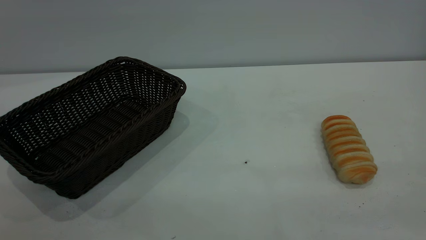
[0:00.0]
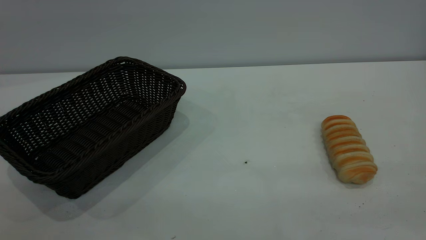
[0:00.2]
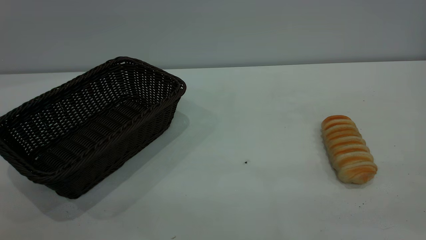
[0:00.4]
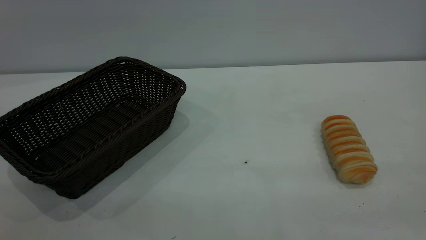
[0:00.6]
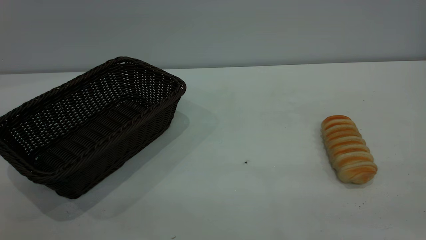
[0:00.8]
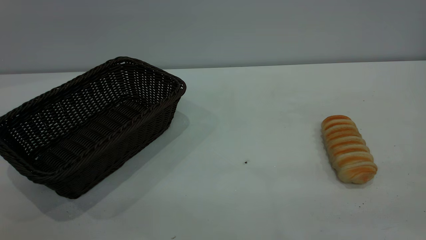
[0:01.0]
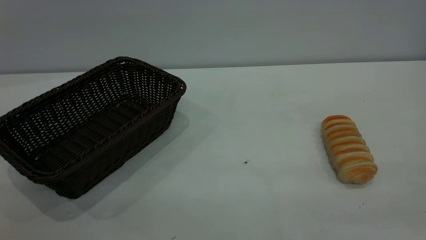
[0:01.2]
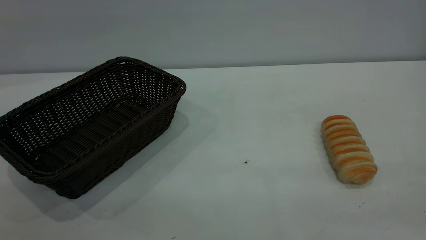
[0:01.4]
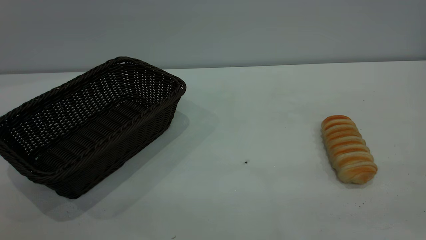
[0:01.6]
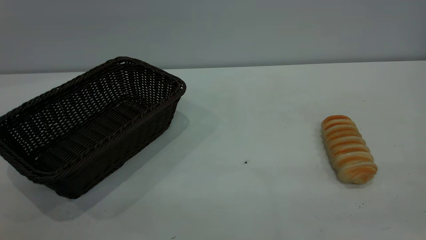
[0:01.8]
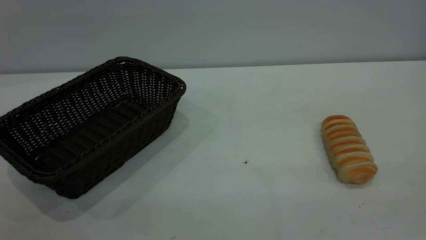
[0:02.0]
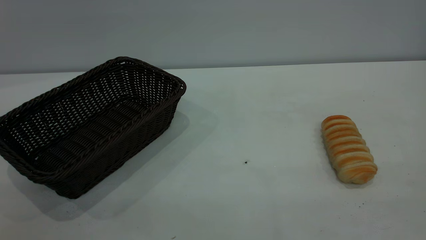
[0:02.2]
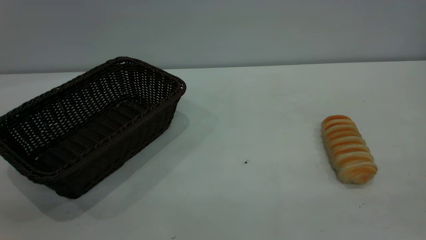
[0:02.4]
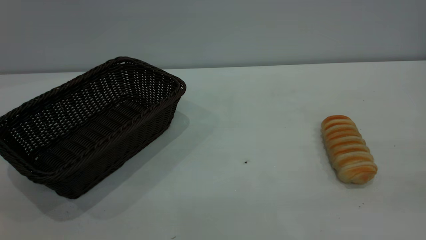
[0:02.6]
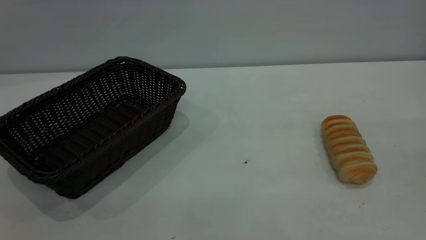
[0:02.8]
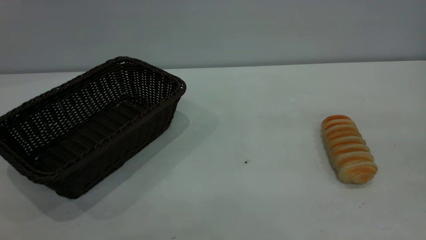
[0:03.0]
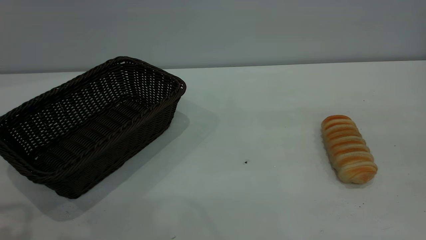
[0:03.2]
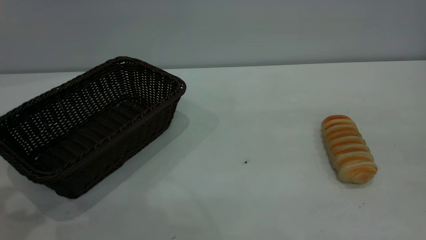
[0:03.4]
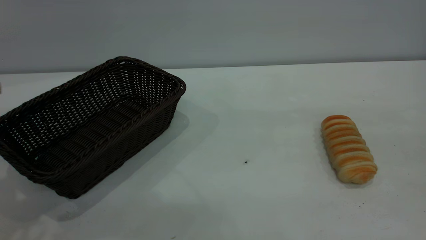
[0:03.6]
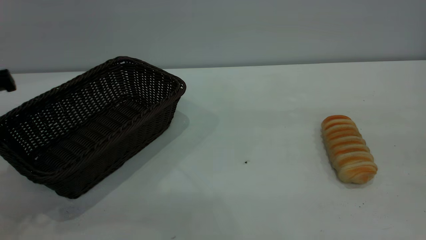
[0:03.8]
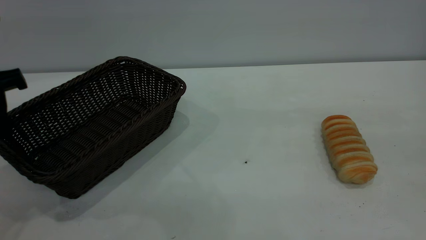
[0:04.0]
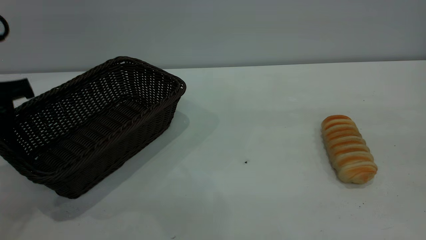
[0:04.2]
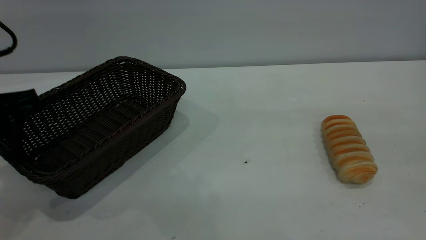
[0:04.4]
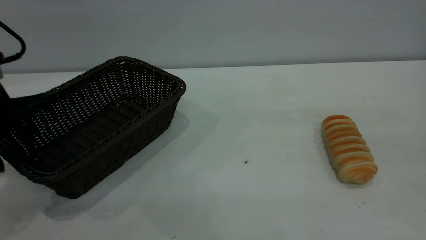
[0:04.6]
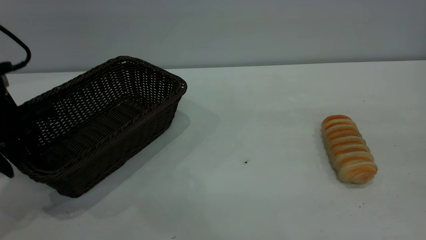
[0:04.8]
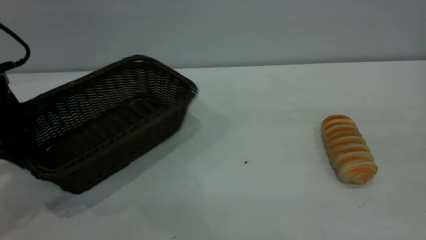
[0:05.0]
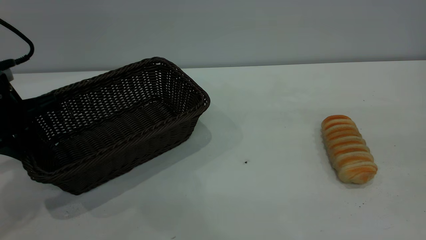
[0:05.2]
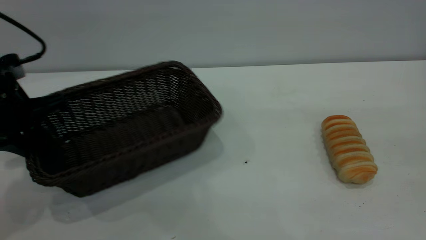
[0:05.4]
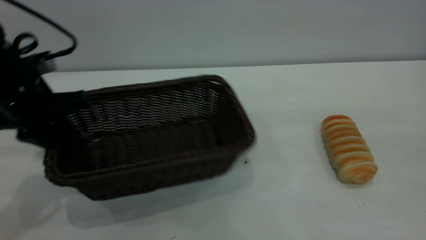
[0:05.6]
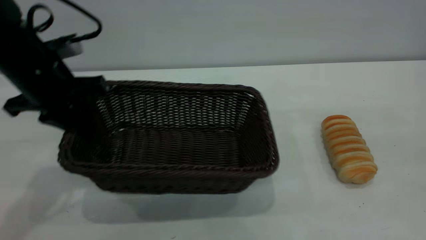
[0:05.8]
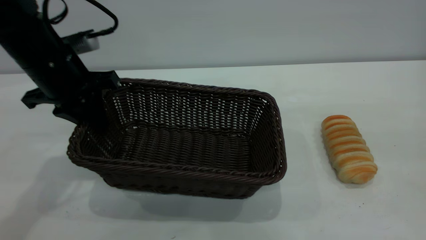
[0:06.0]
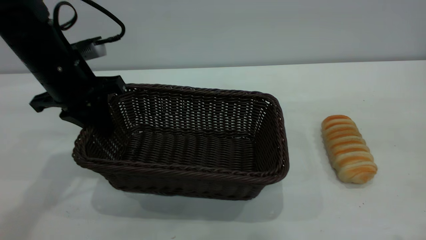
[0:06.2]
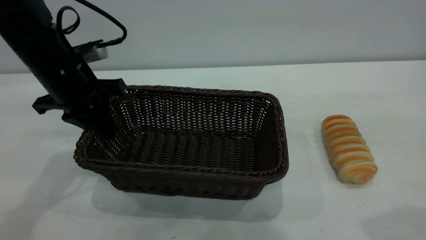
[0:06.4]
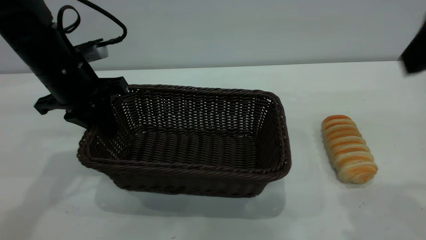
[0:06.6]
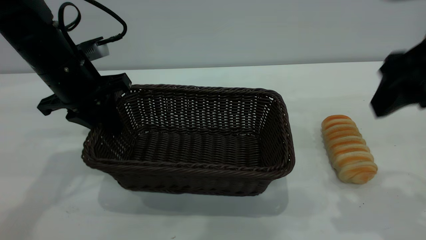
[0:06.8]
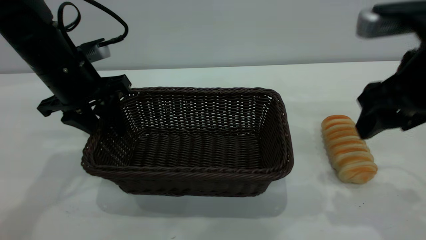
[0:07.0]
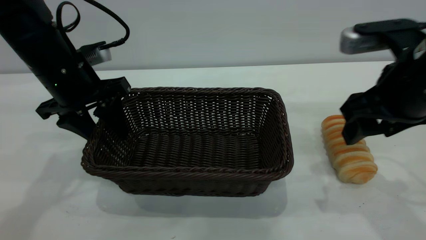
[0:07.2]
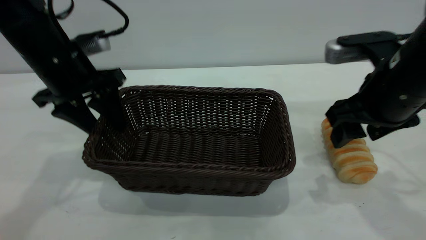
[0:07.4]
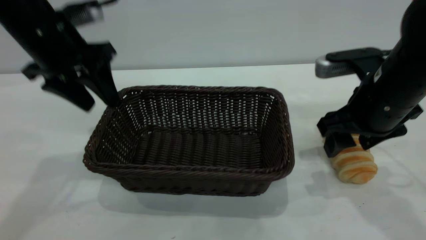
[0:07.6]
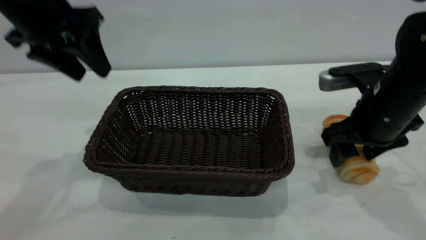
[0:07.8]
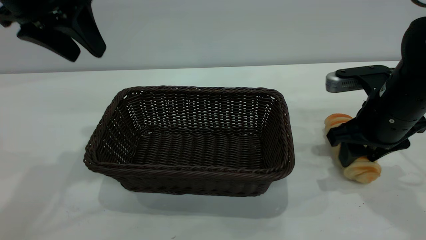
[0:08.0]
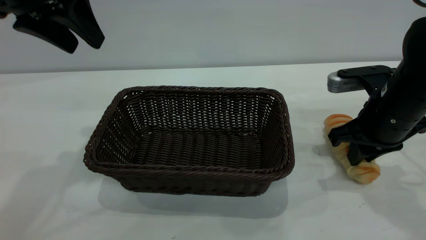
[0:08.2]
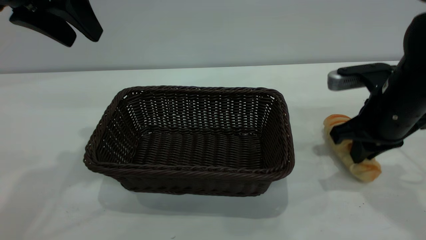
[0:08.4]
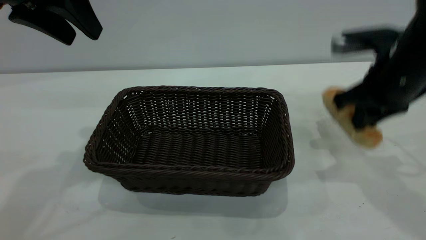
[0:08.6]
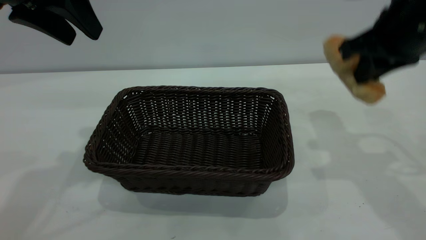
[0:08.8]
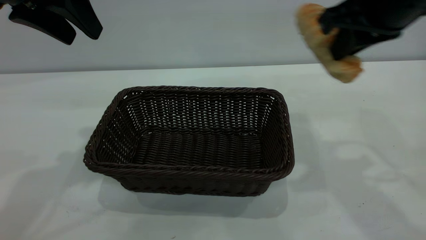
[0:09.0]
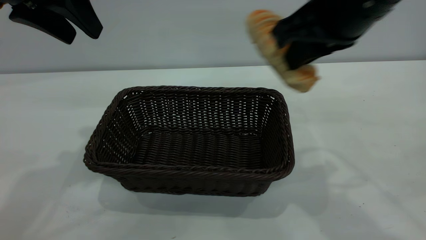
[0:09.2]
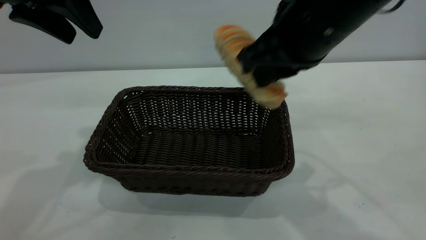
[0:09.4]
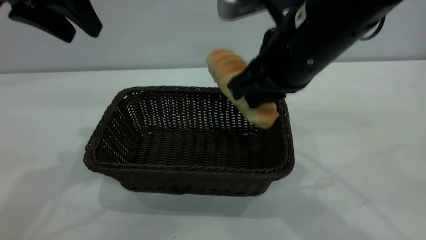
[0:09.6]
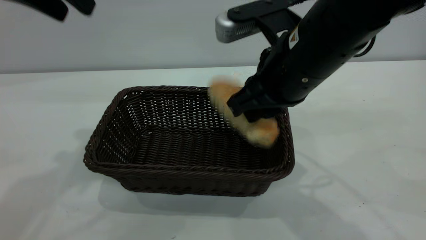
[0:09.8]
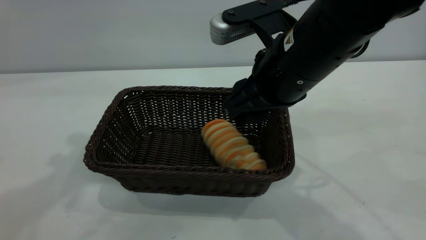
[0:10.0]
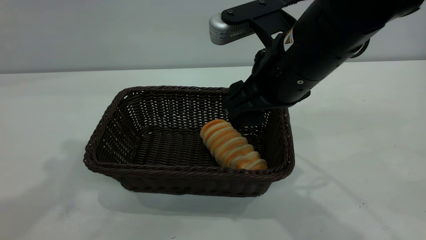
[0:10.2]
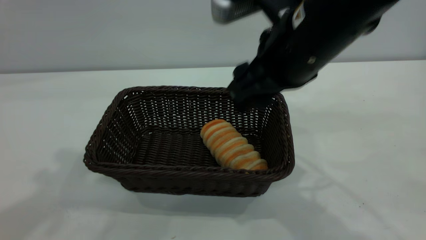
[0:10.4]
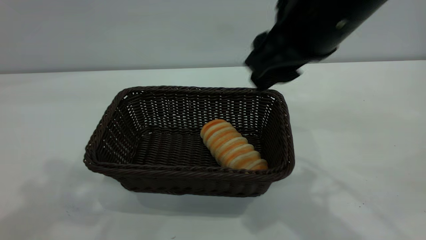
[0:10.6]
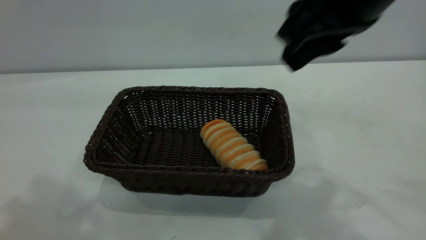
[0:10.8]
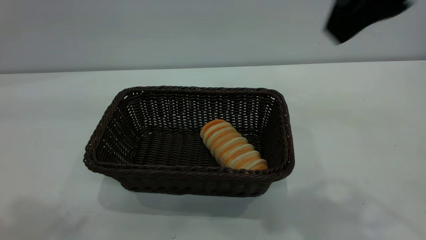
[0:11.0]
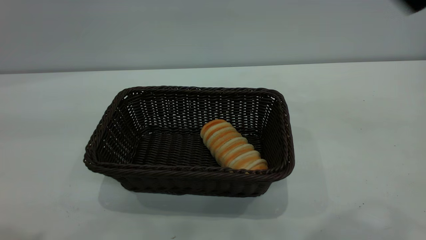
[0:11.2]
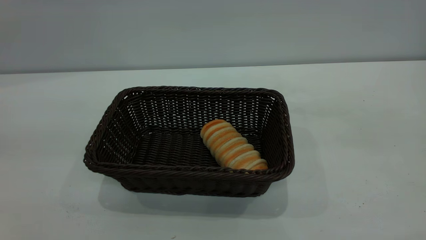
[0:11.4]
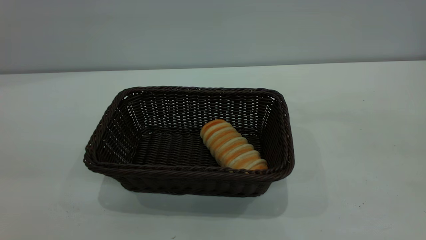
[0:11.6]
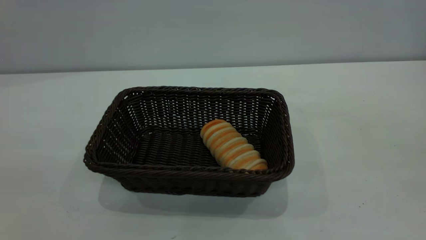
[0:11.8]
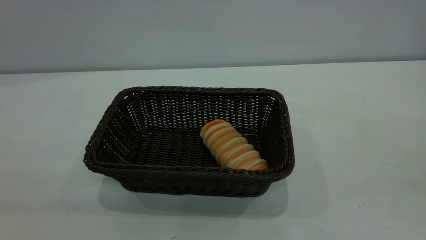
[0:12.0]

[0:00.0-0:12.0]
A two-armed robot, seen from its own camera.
Task of the whole recording: One hand grasps the black basket and places it in the middle of the table, while the other hand picks up the long bread and puts it into the black basket.
Step, 0:00.0 to 0:07.6: Move the basket to the center of view.
Step, 0:08.8 to 0:10.6: place the bread into the basket.
0:00.0 to 0:01.6: Neither gripper changes place.
0:03.0 to 0:04.4: The left gripper moves forward and downward, about 20 cm.
0:04.4 to 0:06.0: The left gripper goes about 10 cm to the right and forward, and closes its fingers.
0:06.0 to 0:07.6: The right gripper travels downward and forward by roughly 30 cm, and opens; the left gripper moves upward, about 5 cm, and opens its fingers.
0:07.6 to 0:09.0: The left gripper travels upward by some 10 cm. The right gripper heads upward, covering roughly 15 cm, and closes.
0:09.0 to 0:10.4: The right gripper travels to the left by approximately 10 cm, and opens its fingers, while the left gripper moves upward and backward, about 10 cm.
0:10.4 to 0:12.0: The left gripper travels backward by some 25 cm. The right gripper travels backward, to the right and upward by approximately 35 cm, and closes.

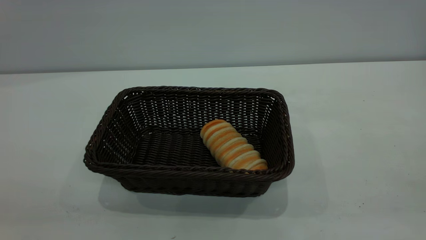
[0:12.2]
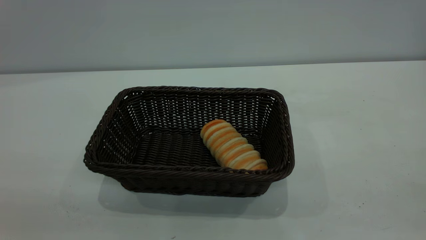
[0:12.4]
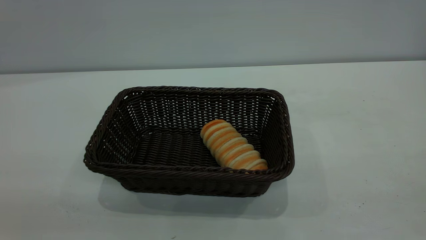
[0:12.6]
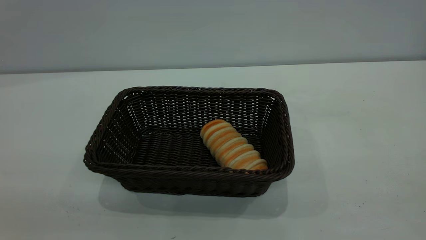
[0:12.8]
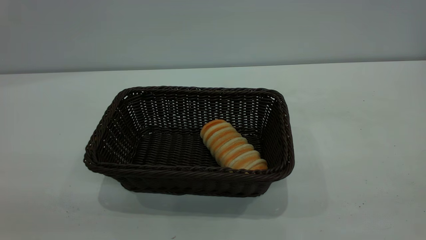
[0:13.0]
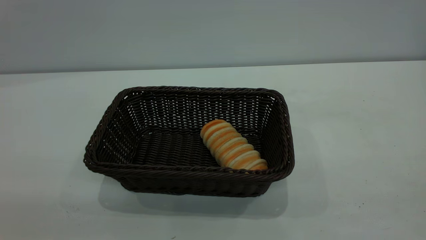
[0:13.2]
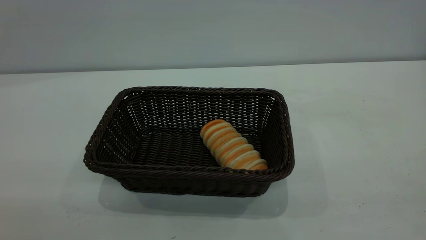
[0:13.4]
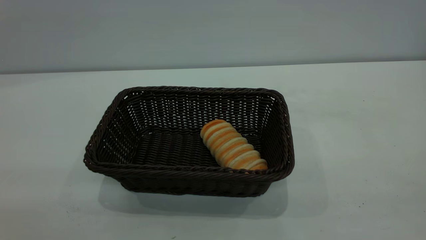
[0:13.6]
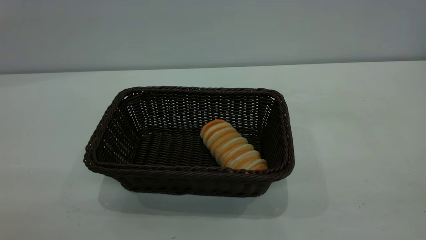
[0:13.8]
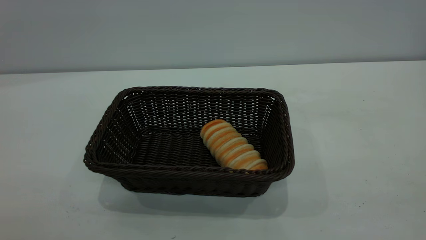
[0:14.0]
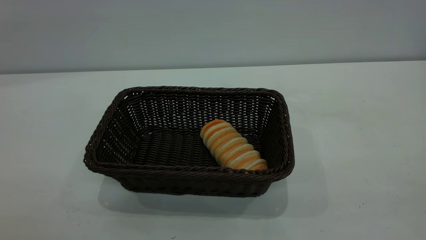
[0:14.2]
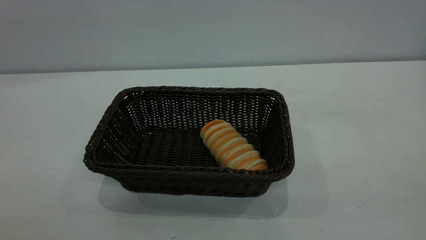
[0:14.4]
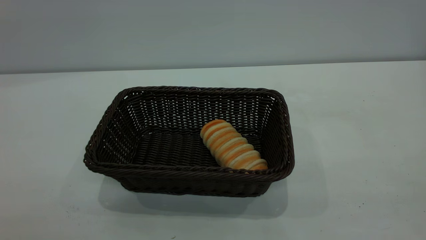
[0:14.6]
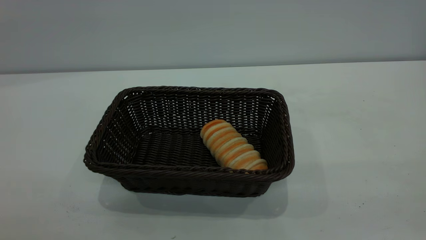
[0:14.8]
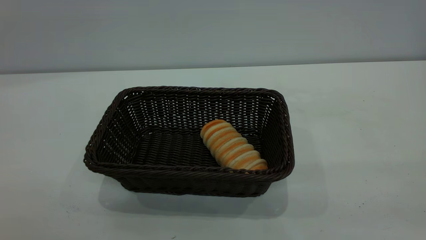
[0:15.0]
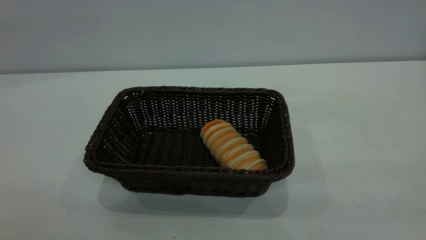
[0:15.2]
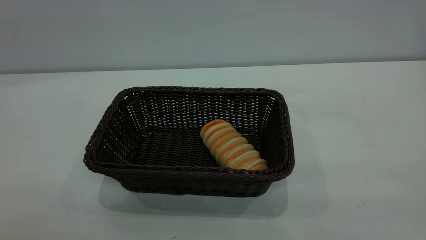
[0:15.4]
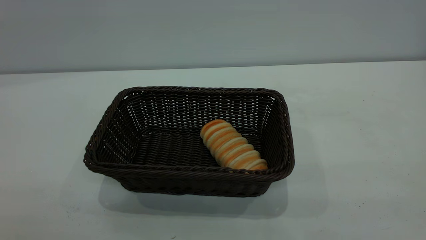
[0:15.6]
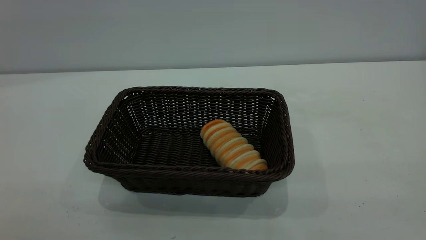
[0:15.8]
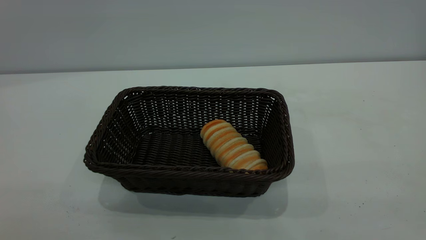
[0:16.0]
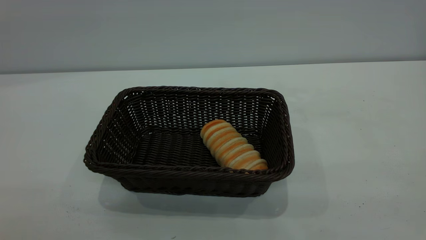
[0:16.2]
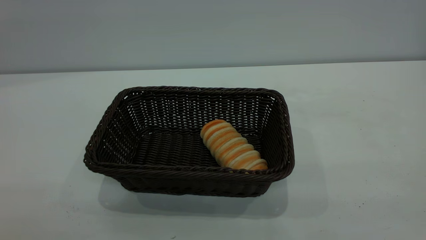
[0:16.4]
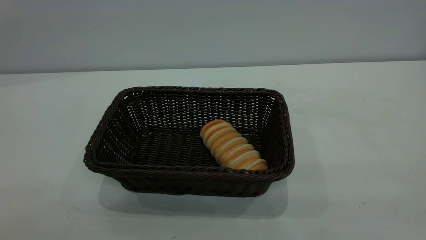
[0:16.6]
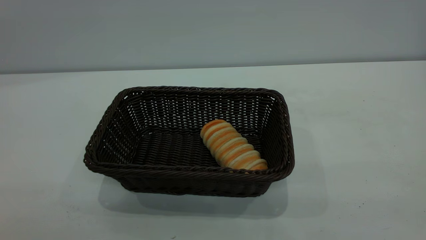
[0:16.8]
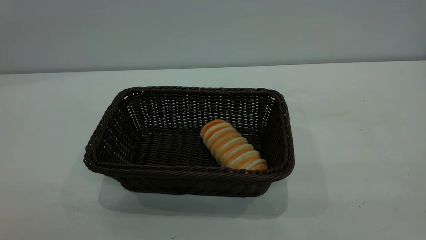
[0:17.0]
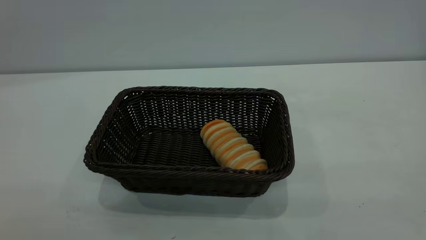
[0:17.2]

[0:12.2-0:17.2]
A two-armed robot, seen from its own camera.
Task of the whole recording: One hand grasps the black basket and places it in the middle of the table, while the other hand picks up the long bread and puts it into the black basket.
0:15.6 to 0:17.2: The two grippers keep their place.
